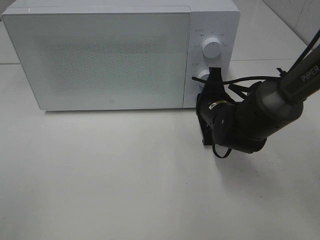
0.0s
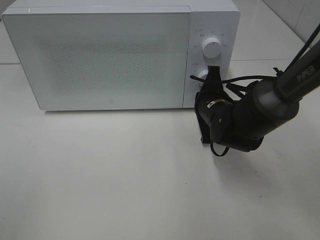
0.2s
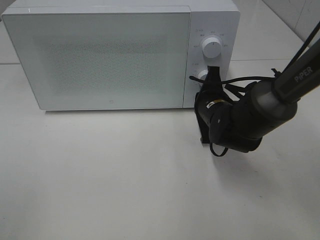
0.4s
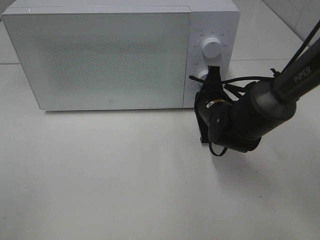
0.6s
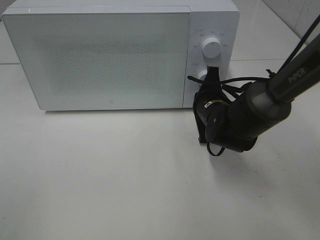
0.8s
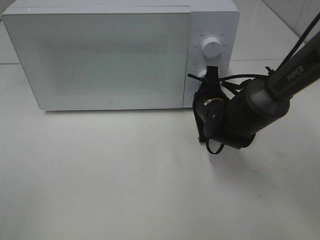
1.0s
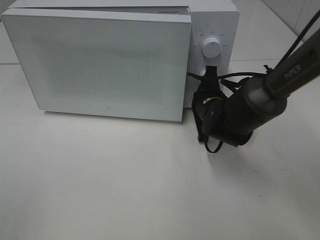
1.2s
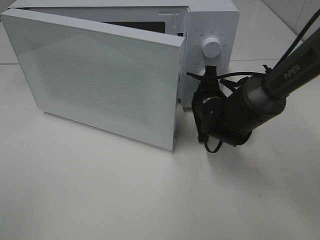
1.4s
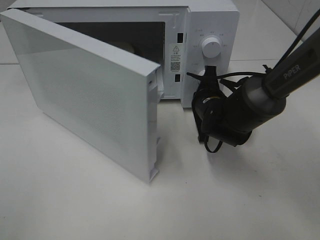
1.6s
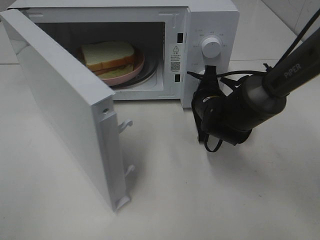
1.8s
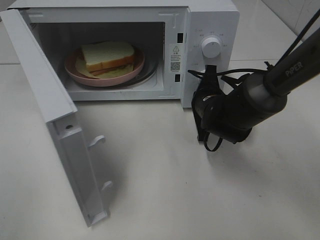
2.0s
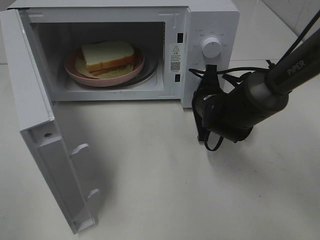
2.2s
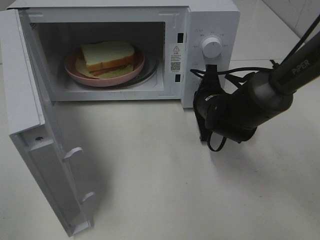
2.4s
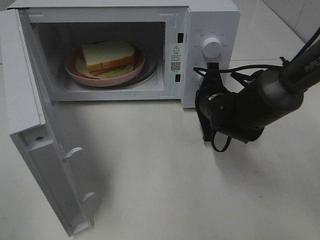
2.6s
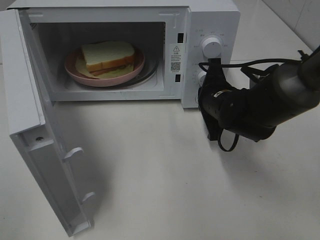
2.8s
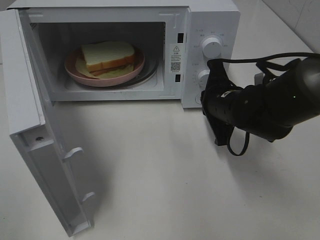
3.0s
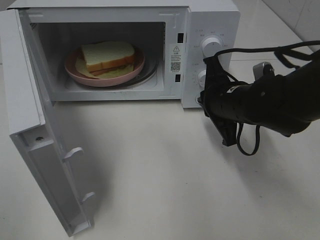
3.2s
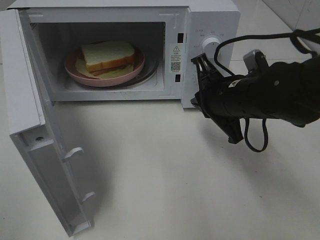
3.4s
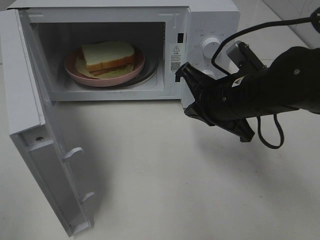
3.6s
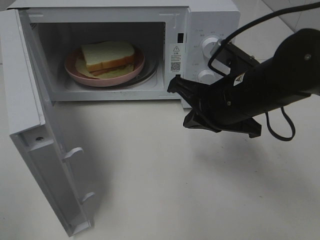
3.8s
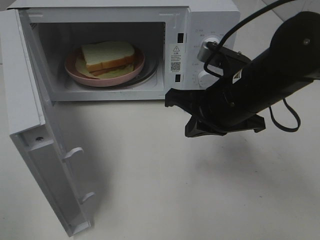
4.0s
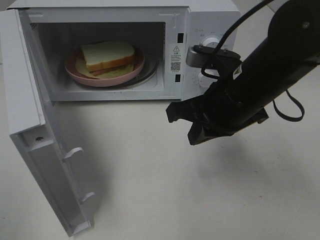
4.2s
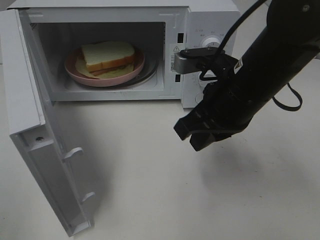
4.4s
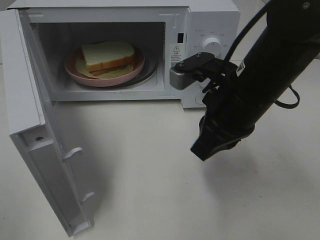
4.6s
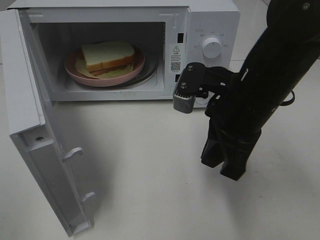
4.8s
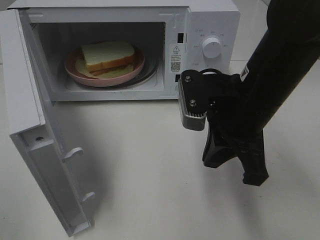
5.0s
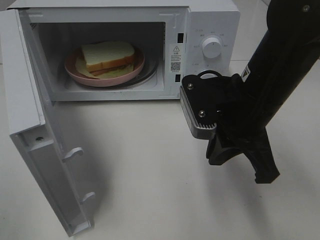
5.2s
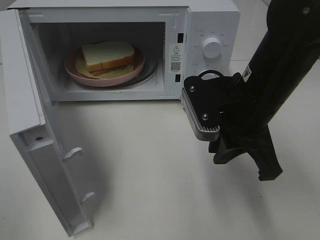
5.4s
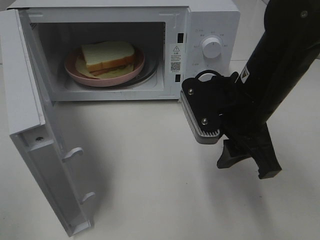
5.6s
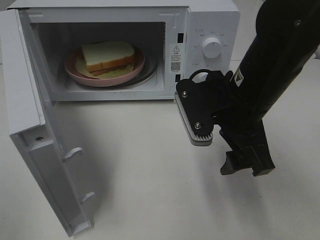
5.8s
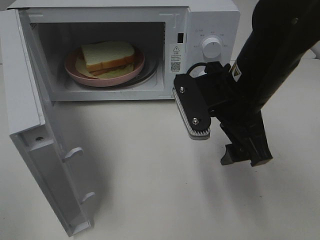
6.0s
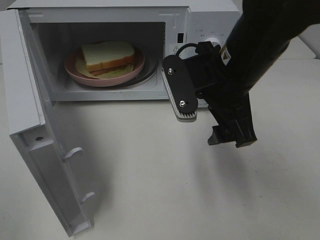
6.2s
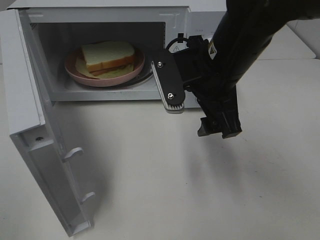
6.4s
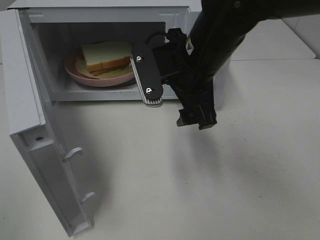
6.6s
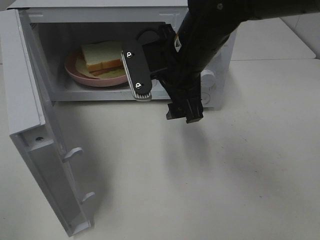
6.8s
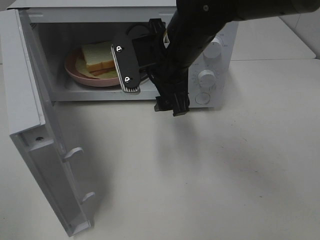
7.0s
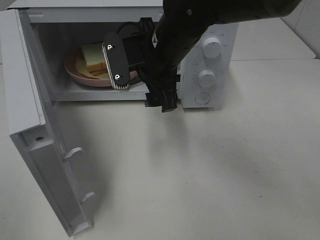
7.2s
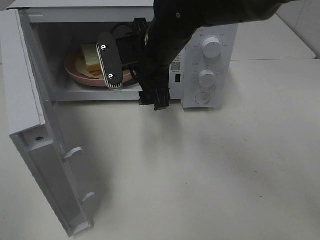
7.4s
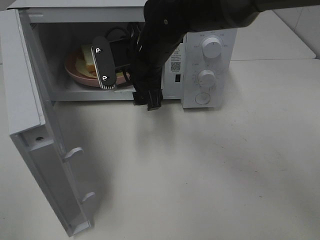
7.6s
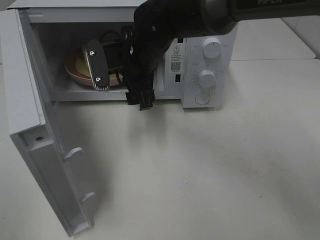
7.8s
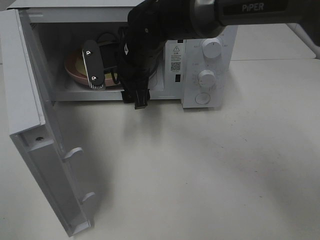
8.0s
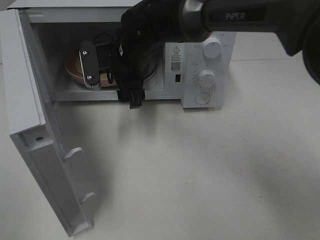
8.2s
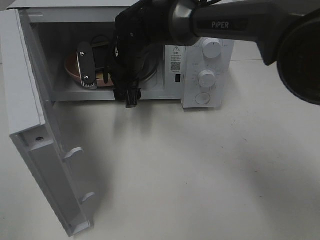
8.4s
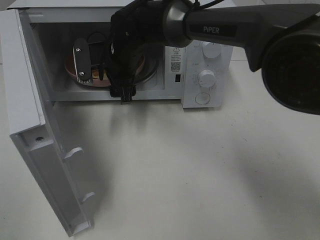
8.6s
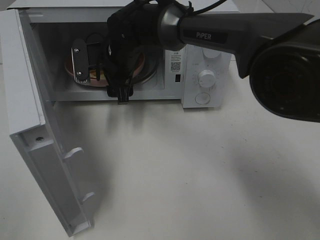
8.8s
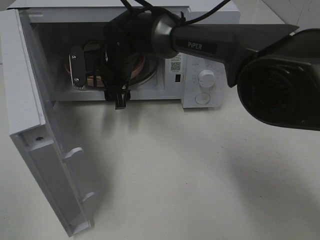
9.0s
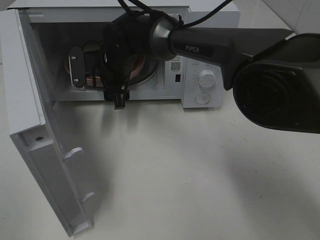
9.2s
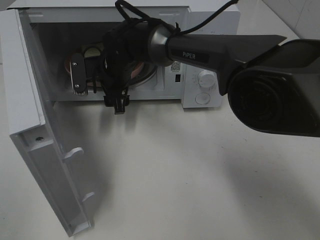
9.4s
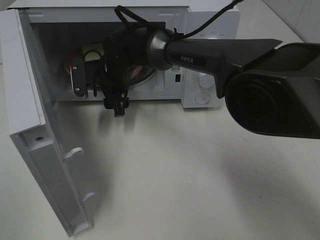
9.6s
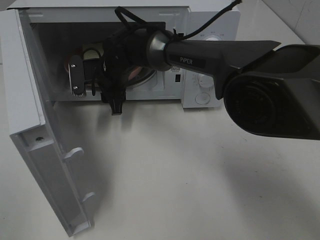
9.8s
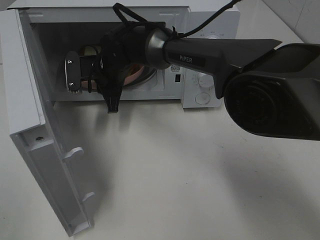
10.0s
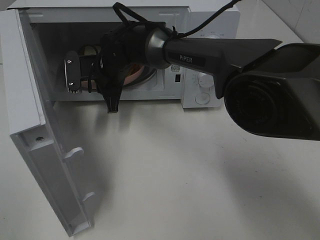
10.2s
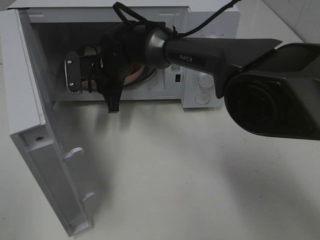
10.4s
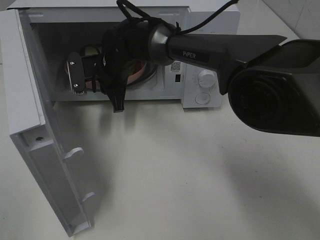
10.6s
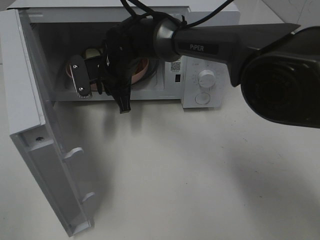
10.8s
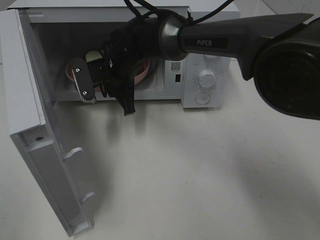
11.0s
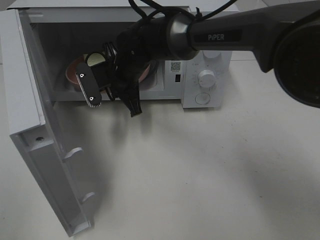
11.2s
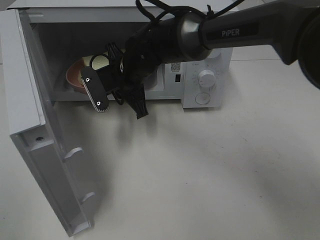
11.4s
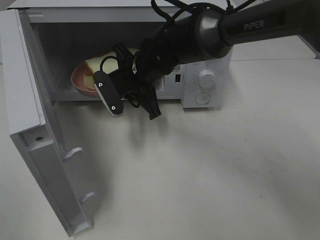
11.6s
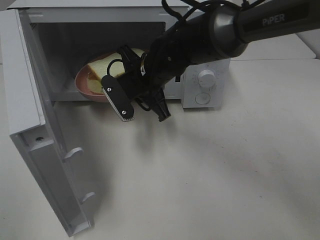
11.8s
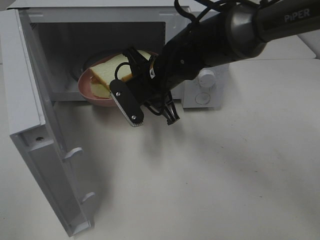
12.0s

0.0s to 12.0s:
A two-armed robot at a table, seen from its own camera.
Task of the whole recording: Heat Sandwich.
Step, 0.0s to 3.6s: Right hand: press the switch.
Step, 3.8s to 10.2s: Right hand: grab the plate with the sandwich.
1.6s to 3.0s: The right gripper shifts by approximately 5 cm.
3.0s to 4.4s: The right gripper heads upward and backward, covering roughly 10 cm.
4.4s to 6.0s: The right gripper opens up.
6.0s to 7.6s: The right gripper is displaced to the left and forward by roughly 15 cm.
7.6s to 9.0s: The right gripper is displaced forward, to the left and downward by roughly 10 cm.
9.0s to 10.4s: The right gripper closes its fingers.
10.4s to 12.0s: The right gripper travels to the right and backward by roughly 10 cm.

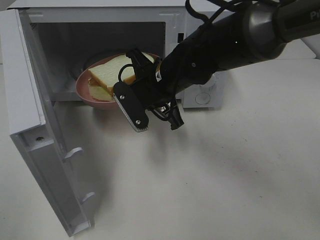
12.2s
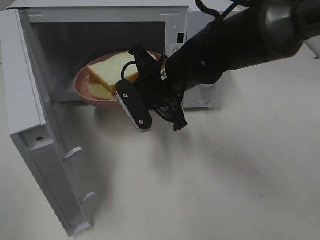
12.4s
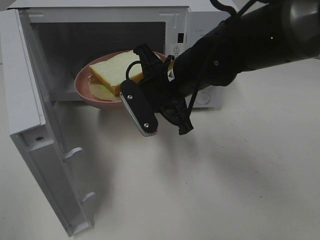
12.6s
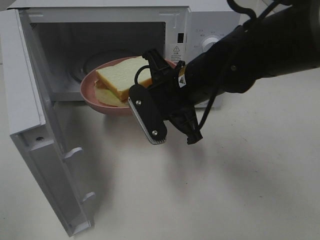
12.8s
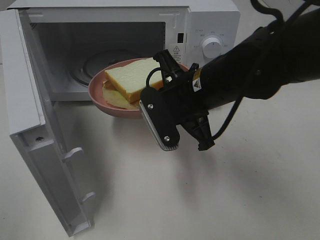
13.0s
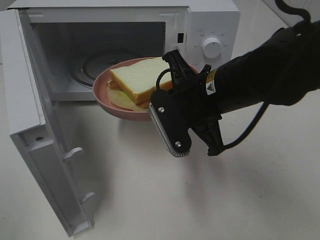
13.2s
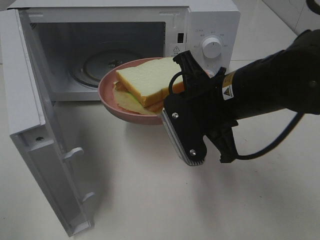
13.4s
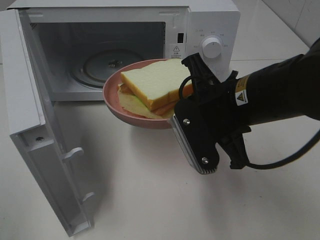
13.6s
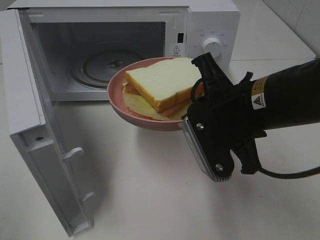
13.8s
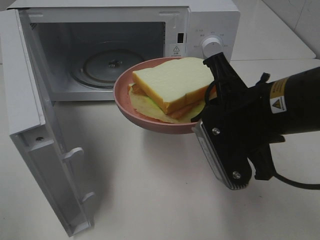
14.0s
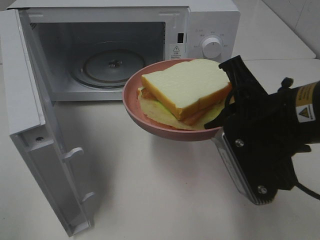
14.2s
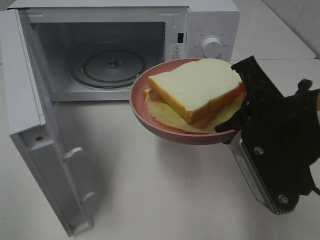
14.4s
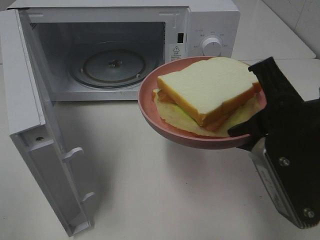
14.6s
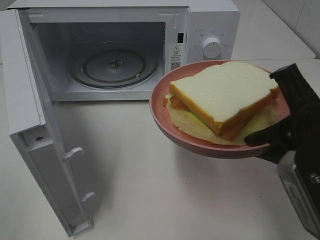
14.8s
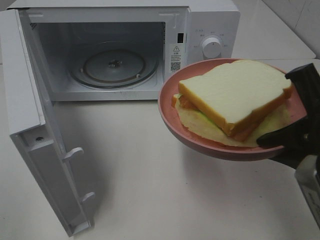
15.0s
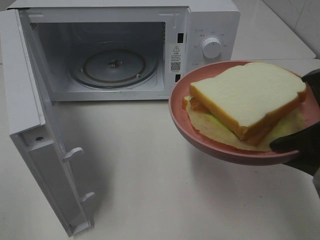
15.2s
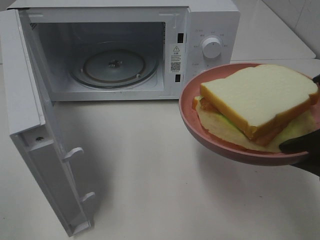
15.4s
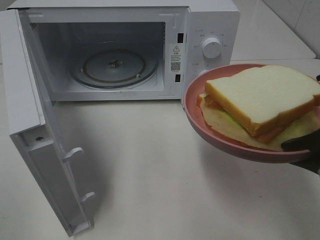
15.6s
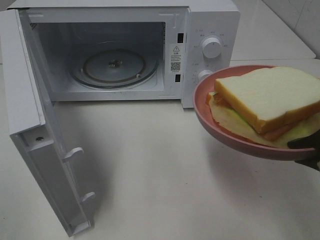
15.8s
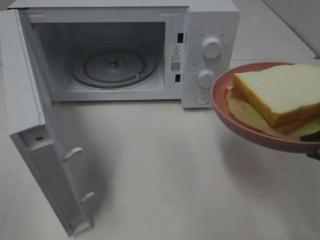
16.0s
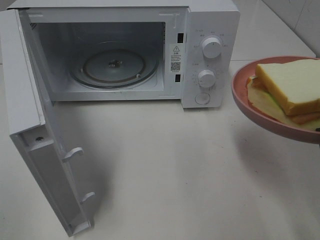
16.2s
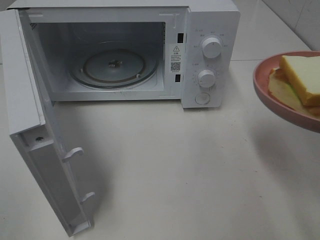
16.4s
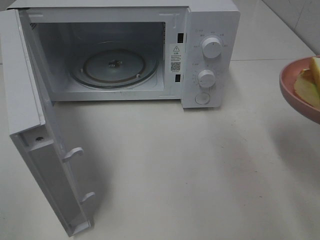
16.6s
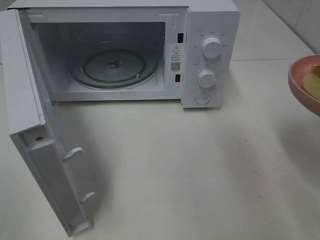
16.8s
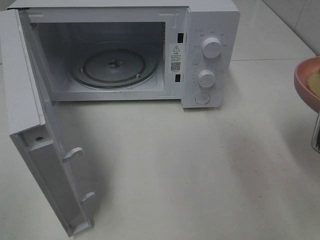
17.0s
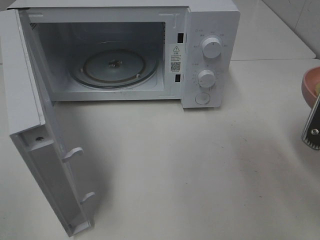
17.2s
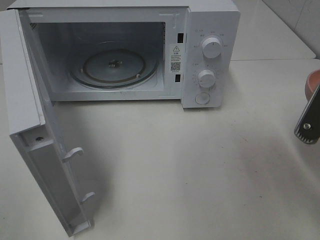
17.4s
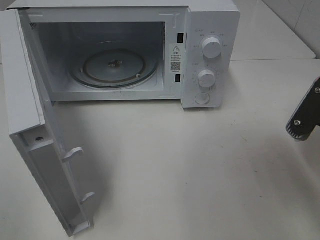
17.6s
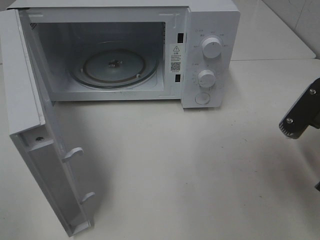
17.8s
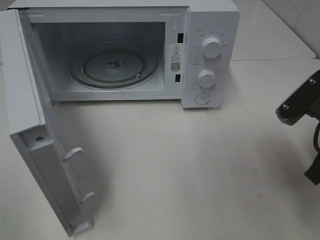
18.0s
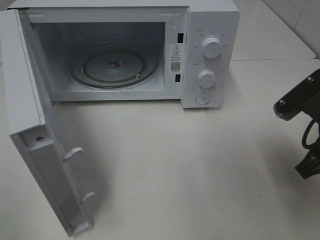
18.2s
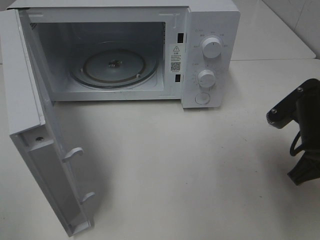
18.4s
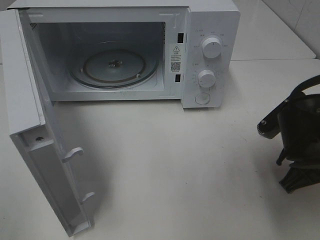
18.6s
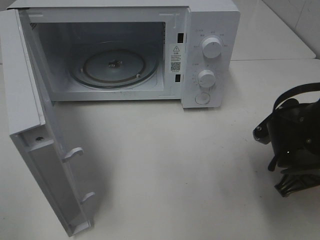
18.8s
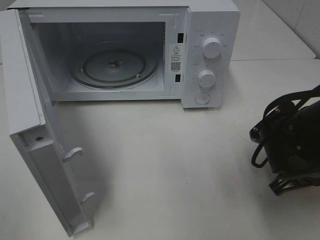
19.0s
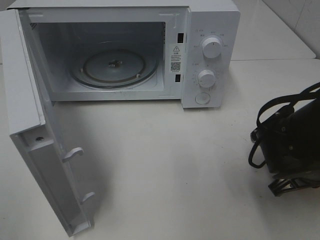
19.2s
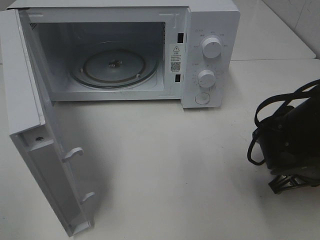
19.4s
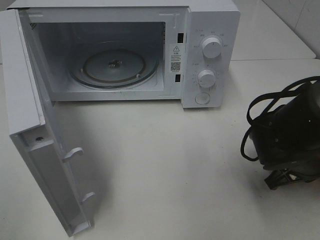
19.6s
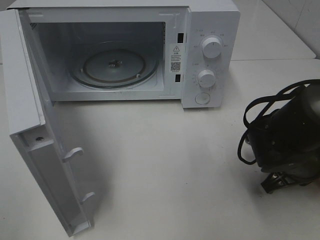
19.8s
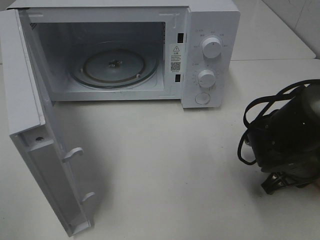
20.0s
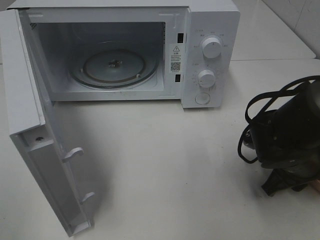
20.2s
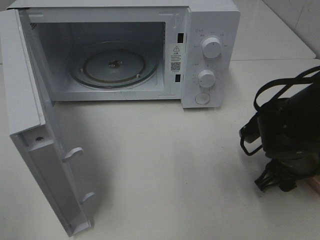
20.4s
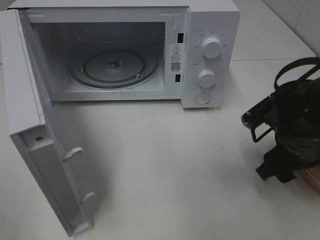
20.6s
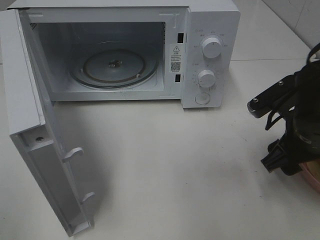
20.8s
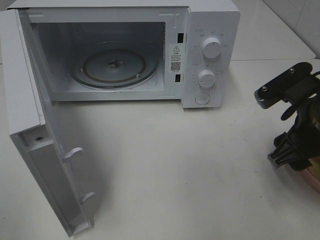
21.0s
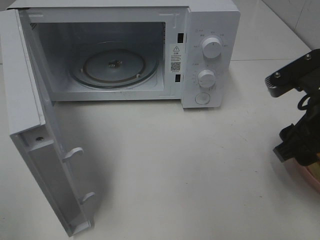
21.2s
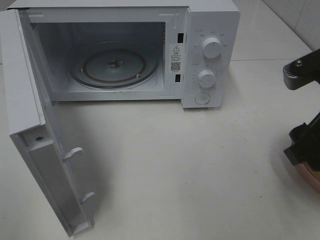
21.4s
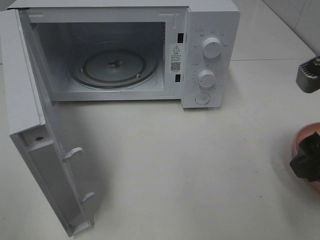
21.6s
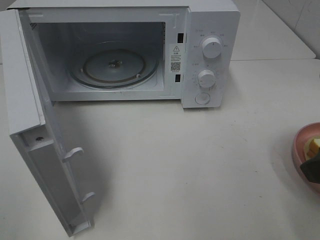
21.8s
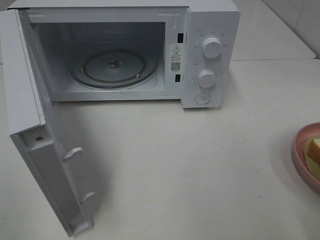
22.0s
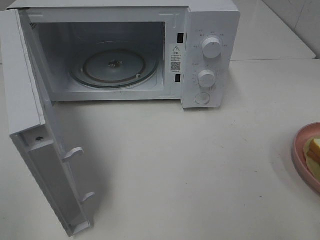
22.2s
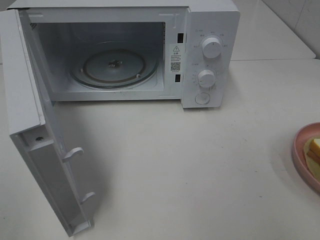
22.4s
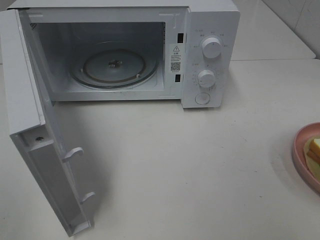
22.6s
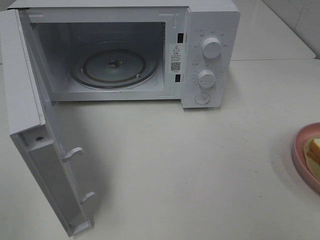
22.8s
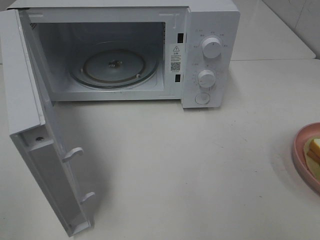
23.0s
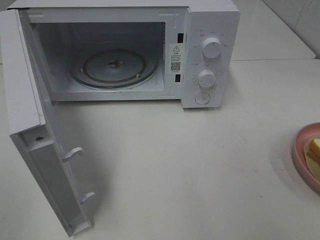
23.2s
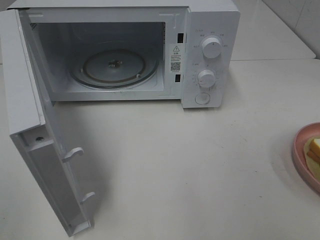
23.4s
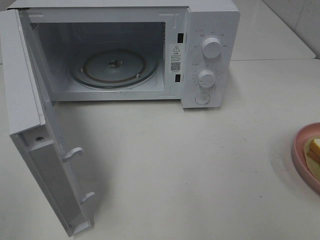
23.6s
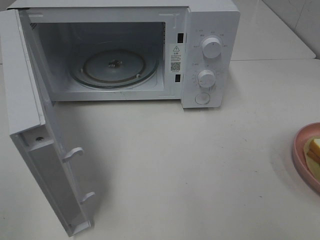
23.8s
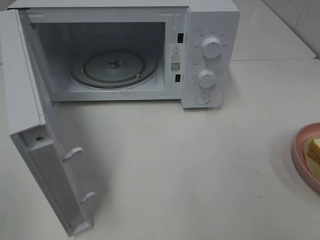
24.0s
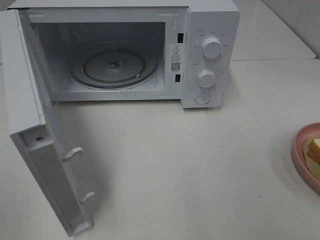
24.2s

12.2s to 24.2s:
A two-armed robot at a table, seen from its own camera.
Task of the whole recording: Heat Sandwich.
Step, 12.2s to 21.2s: Right hand: place the plate on the table.
12.2s to 13.8s: The right gripper is displaced backward, to the right and upward by roughly 15 cm.
13.8s to 15.2s: The right gripper shifts roughly 15 cm backward and to the right.
16.6s to 18.2s: The right gripper is displaced downward and forward by about 10 cm.
18.2s to 19.8s: The right gripper is displaced downward by approximately 10 cm.
19.8s to 21.2s: The right gripper shifts some 15 cm upward, and opens.
21.2s to 22.6s: The right gripper travels backward, upward and to the right by some 20 cm.
